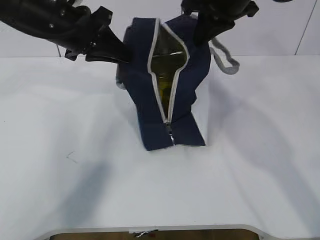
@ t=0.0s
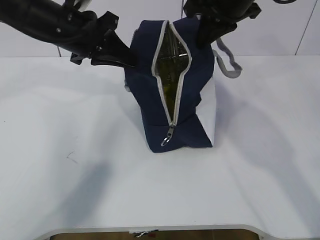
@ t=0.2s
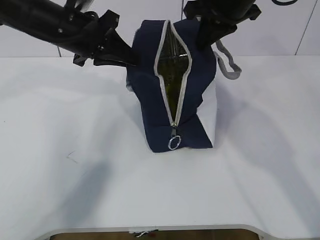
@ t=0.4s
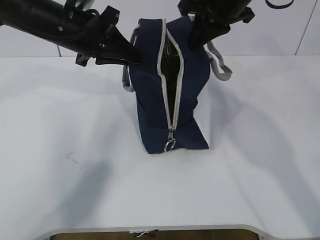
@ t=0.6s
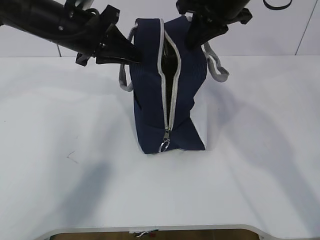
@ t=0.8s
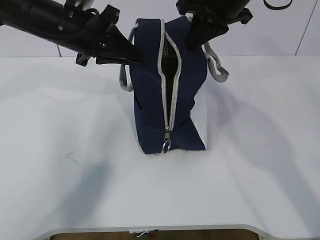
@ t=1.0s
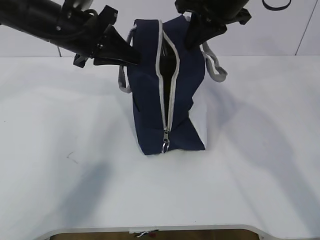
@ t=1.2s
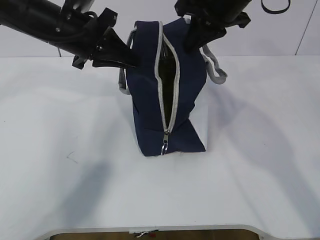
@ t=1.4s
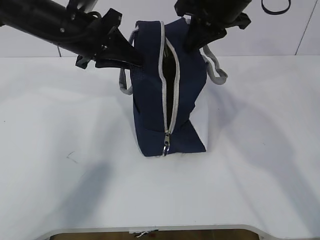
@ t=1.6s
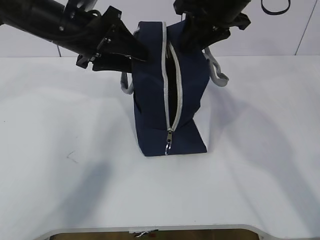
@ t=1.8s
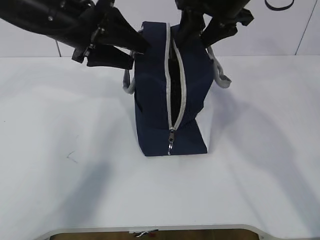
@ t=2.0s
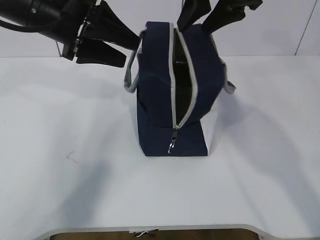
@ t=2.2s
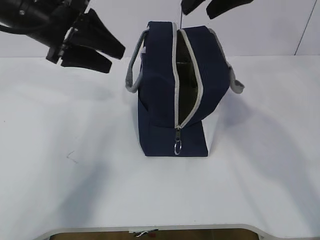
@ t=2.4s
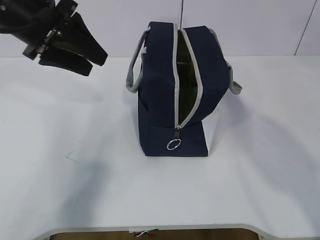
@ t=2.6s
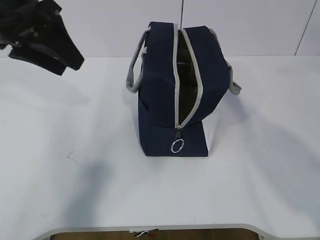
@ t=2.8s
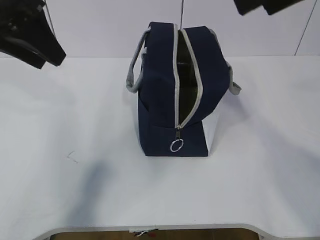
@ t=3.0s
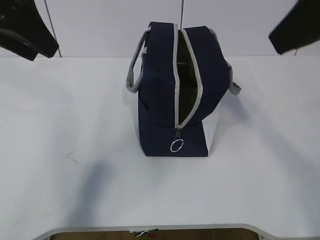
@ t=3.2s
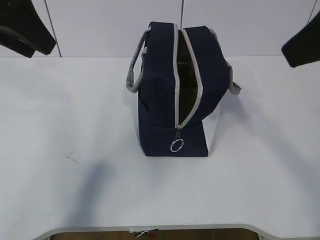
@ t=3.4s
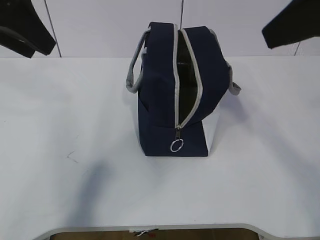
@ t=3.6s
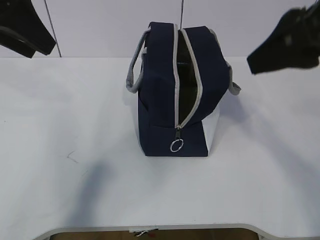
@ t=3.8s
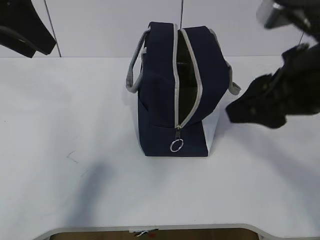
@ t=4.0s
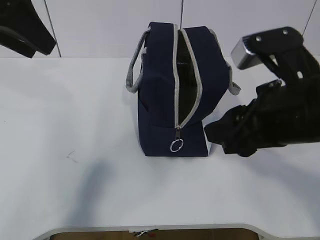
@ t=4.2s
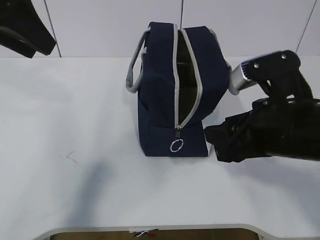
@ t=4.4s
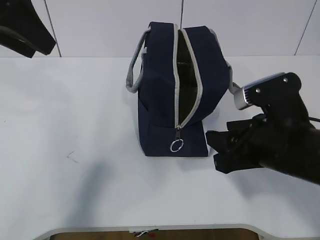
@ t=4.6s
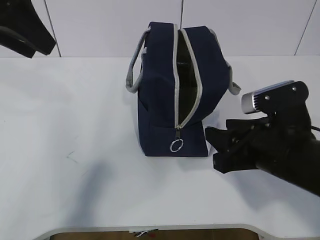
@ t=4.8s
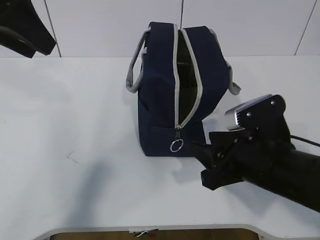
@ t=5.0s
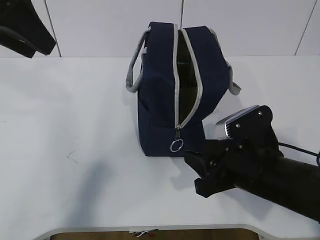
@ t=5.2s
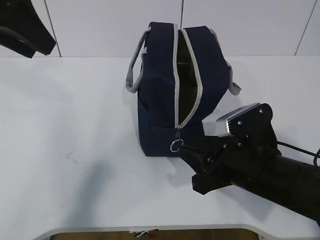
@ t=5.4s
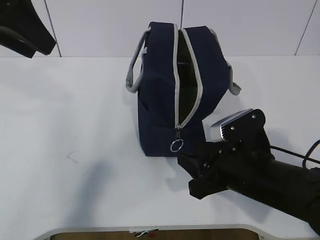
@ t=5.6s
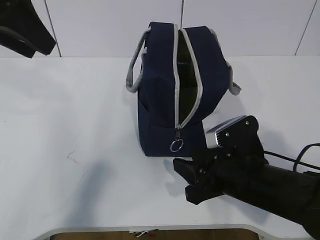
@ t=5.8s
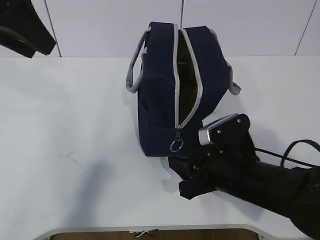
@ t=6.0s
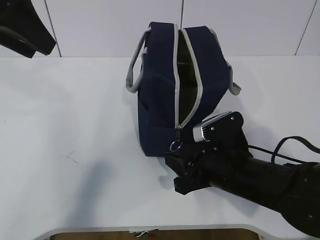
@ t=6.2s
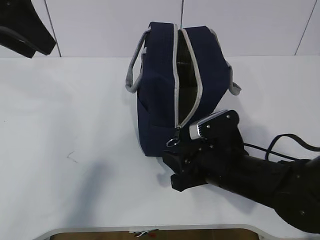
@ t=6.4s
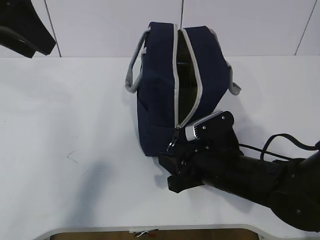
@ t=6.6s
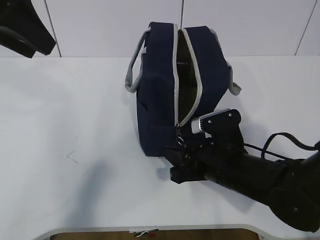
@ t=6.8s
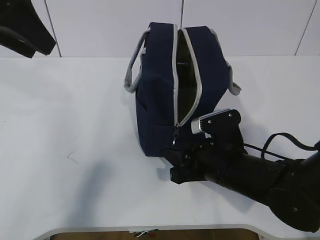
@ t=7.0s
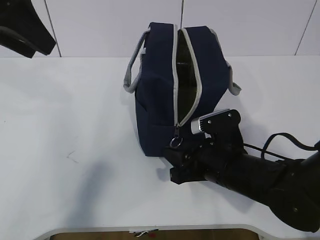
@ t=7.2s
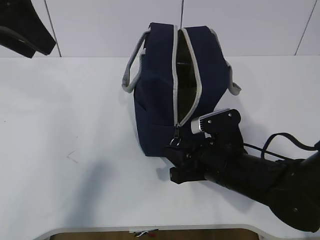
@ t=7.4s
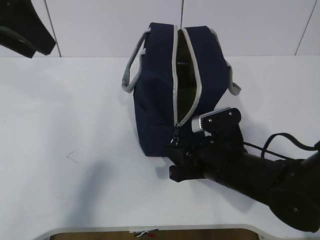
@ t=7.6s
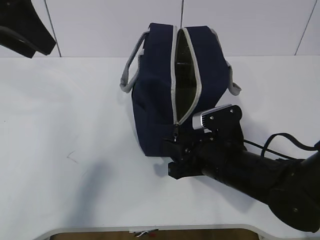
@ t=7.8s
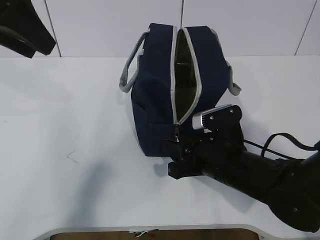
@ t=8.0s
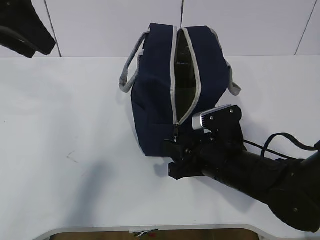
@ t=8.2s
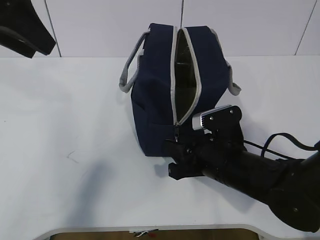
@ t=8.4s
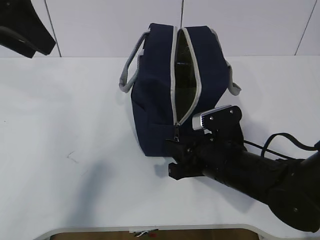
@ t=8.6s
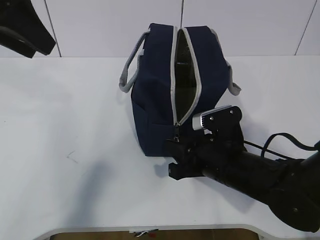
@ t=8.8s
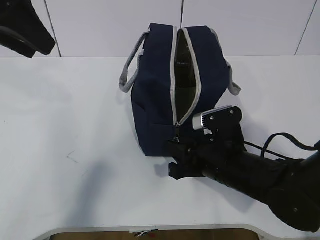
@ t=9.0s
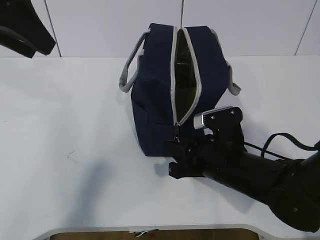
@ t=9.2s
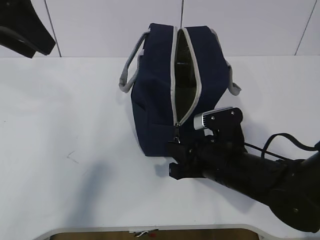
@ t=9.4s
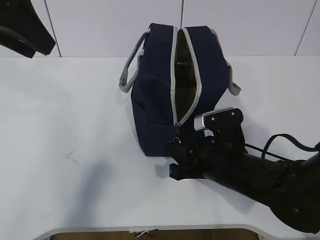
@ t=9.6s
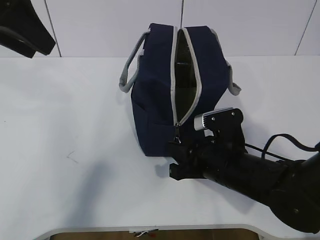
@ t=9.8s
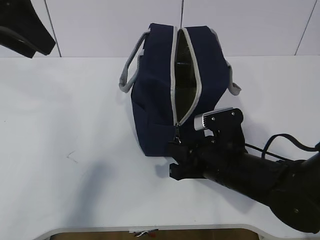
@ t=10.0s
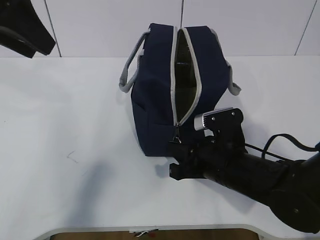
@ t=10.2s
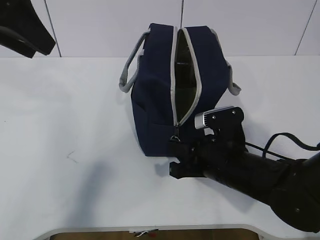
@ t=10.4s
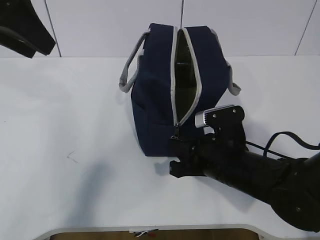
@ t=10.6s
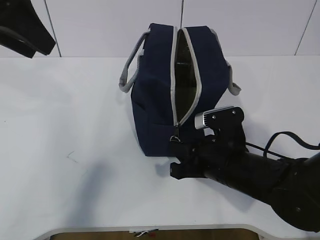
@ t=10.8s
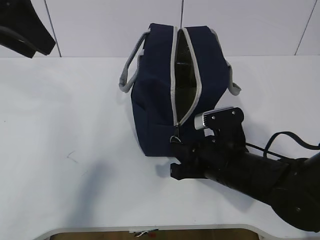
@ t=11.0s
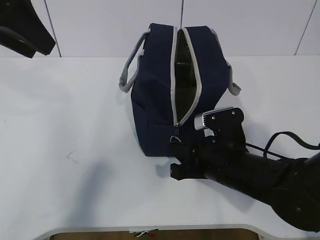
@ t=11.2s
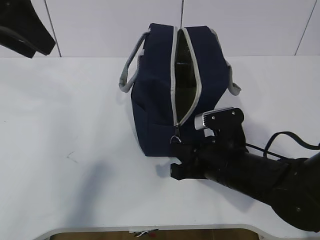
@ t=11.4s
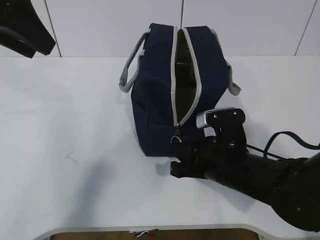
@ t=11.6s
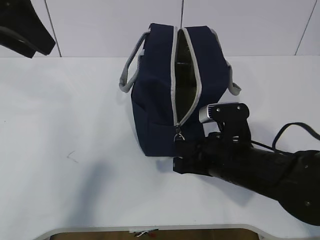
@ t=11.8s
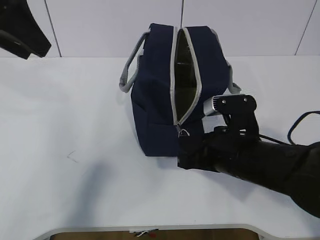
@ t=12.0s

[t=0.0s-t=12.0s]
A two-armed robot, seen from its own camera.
t=0.0s to t=1.6s: The grippers stay close to where they were, moving slightly.
t=1.6s to t=3.0s: The left gripper heads upward, backward and to the left, covering roughly 15 cm, and opens; the right gripper travels backward and upward by some 20 cm, and opens its fingers.
t=3.0s to t=4.4s: The right gripper is displaced downward by approximately 20 cm.
t=4.4s to t=6.0s: The right gripper is displaced downward by some 10 cm.
t=6.0s to t=7.6s: The grippers make only small movements.
t=7.6s to t=10.4s: Neither gripper changes place.
t=10.4s to t=12.0s: The grippers make only small movements.

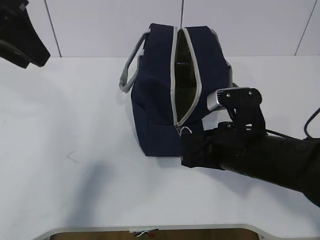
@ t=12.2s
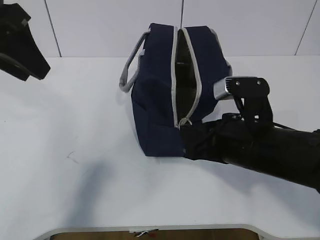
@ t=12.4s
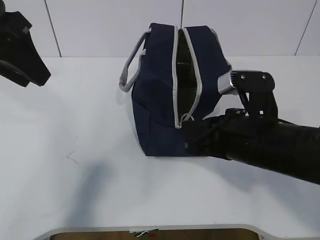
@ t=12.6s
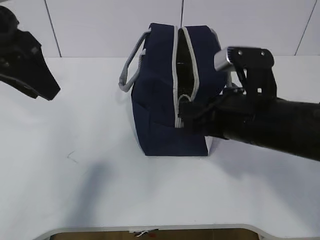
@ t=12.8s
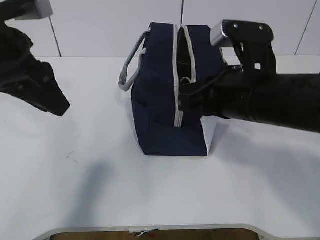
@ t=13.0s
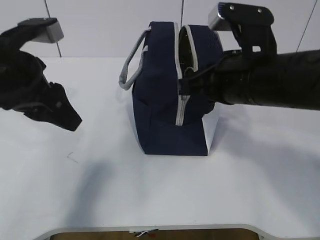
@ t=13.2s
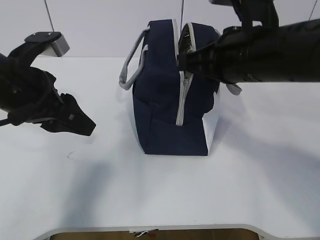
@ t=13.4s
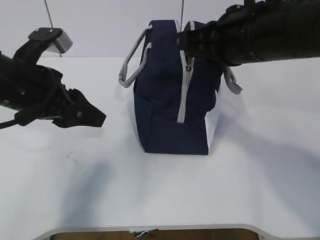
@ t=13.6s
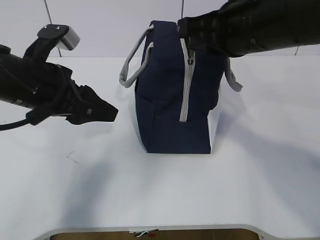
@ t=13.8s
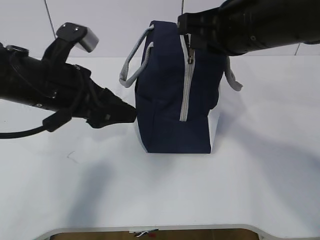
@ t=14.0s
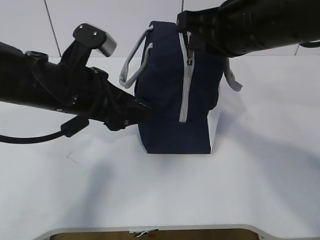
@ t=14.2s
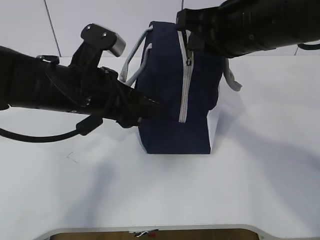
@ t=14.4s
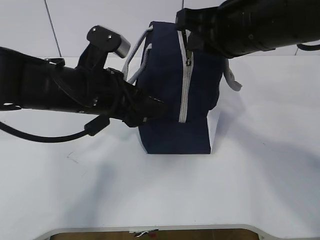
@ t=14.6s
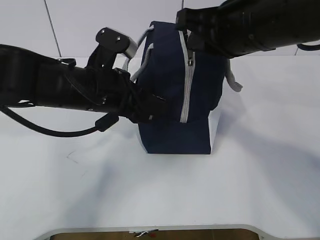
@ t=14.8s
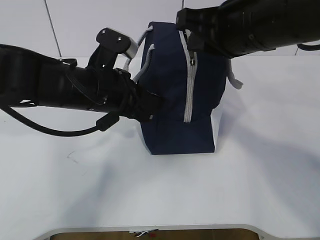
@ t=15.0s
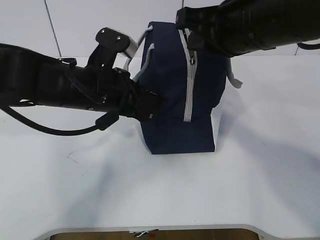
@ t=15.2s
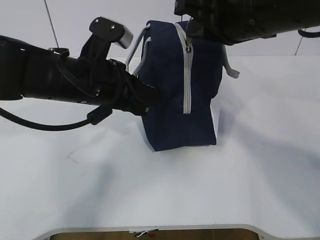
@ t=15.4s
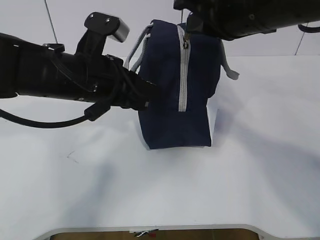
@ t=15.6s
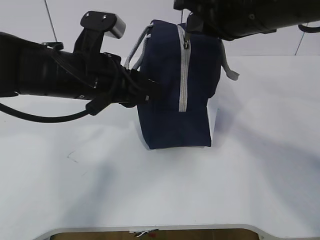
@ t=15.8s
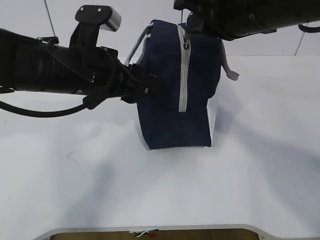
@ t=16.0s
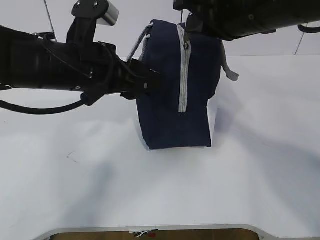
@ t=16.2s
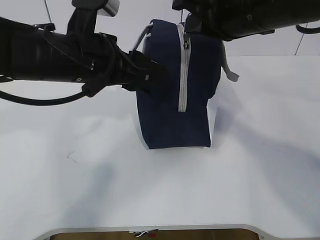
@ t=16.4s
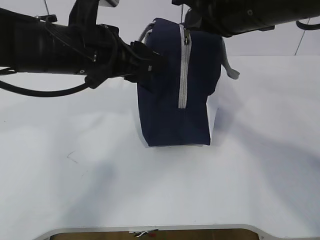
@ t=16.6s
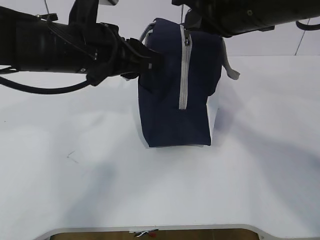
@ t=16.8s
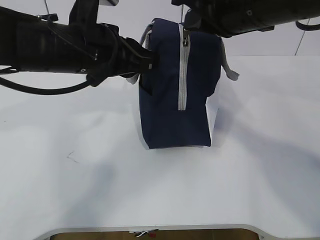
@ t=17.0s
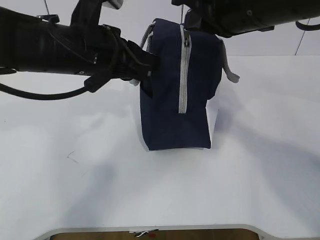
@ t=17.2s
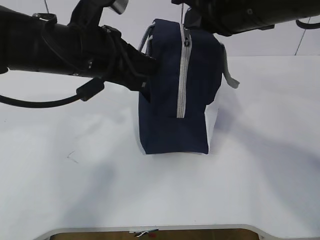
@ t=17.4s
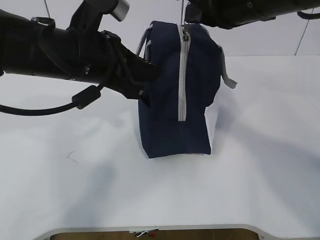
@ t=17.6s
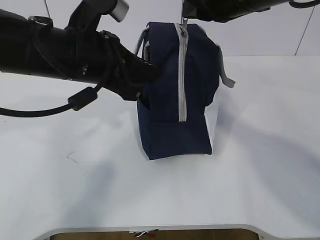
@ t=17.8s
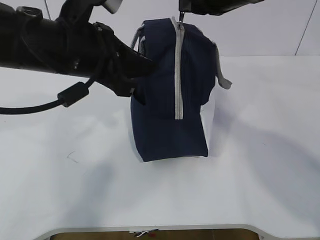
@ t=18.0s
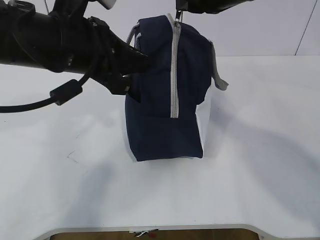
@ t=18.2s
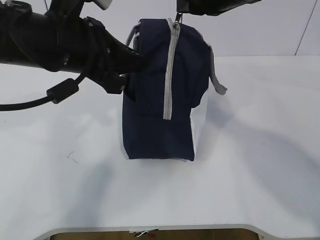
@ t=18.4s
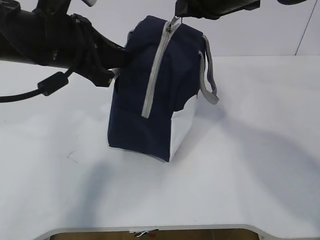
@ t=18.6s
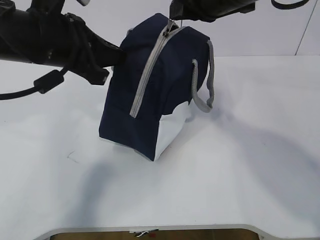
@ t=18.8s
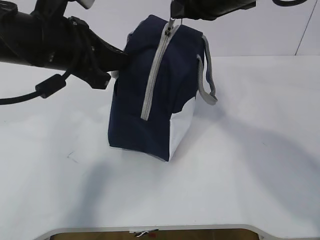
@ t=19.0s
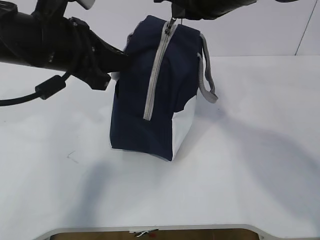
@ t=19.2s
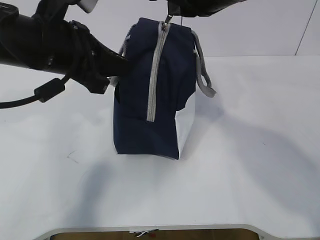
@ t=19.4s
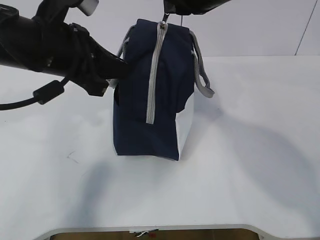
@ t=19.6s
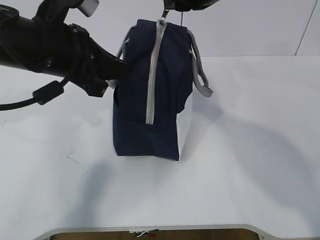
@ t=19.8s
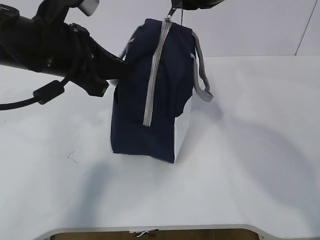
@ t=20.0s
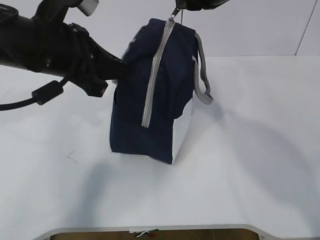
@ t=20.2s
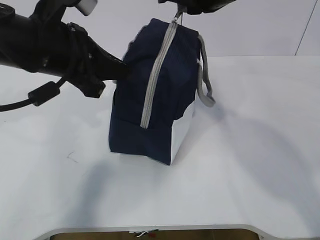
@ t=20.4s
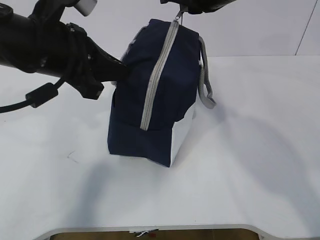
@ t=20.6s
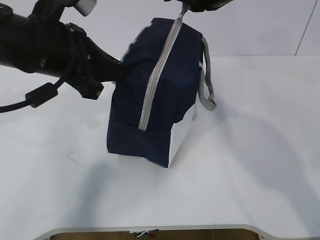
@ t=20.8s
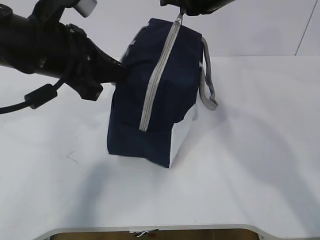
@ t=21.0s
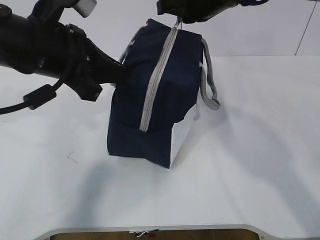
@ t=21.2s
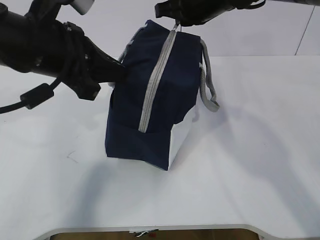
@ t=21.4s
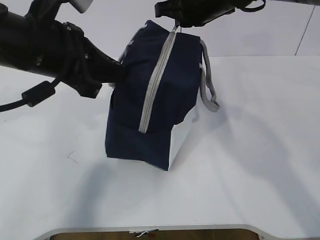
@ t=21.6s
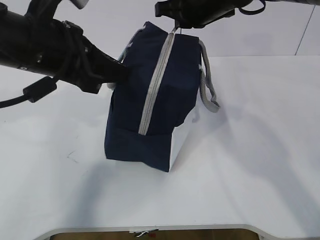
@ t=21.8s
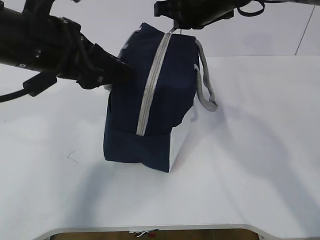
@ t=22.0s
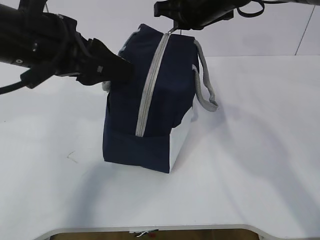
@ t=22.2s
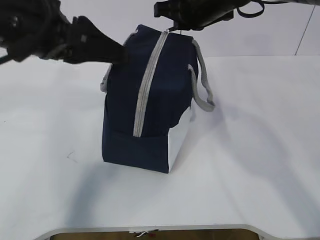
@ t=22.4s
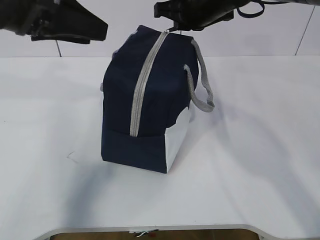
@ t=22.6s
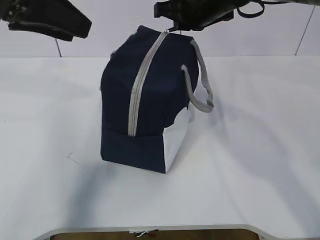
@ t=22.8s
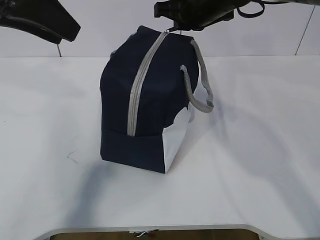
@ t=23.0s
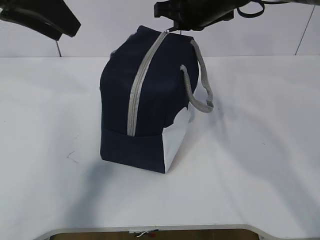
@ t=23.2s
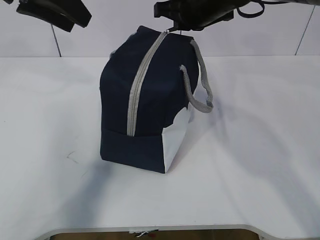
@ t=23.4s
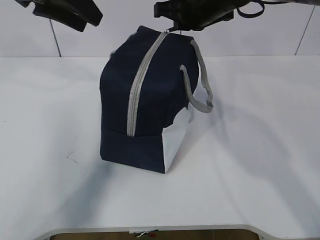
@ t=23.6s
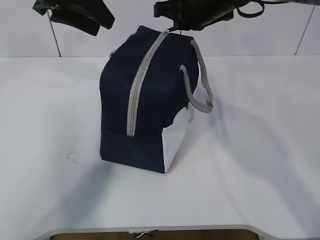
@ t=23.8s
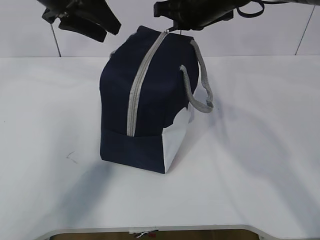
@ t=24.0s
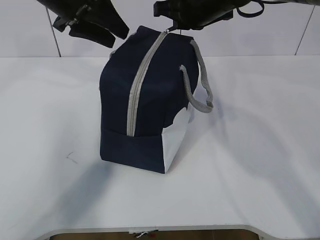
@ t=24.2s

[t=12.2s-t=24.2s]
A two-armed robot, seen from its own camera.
Step, t=12.6s to t=18.0s: Pull the zipper with your right hand.
Step, t=18.4s to t=19.8s: Grab the lunch bag with your left hand.
t=12.2s to t=13.8s: The left gripper heads downward, covering roughly 15 cm. Meanwhile the right gripper travels upward by approximately 15 cm.
t=13.8s to t=15.2s: The left gripper moves to the right, about 5 cm, and closes its fingers.
t=15.2s to t=16.6s: The left gripper travels upward by some 5 cm, and opens.
t=16.6s to t=18.2s: The left gripper closes.
t=18.2s to t=19.8s: The grippers move only a little.
t=19.8s to t=21.2s: The right gripper is displaced forward by about 10 cm.
t=21.2s to t=22.6s: The left gripper is displaced upward by some 5 cm, and opens.
t=22.6s to t=24.2s: The left gripper is displaced forward by roughly 10 cm.
